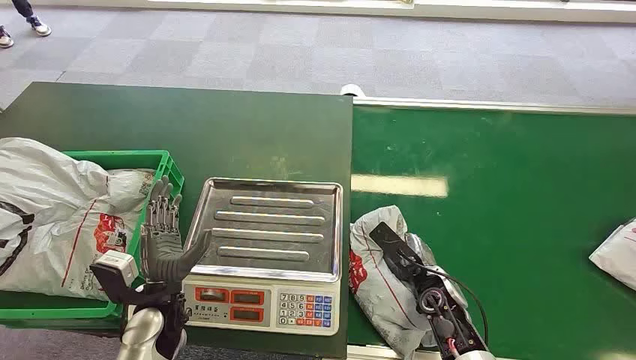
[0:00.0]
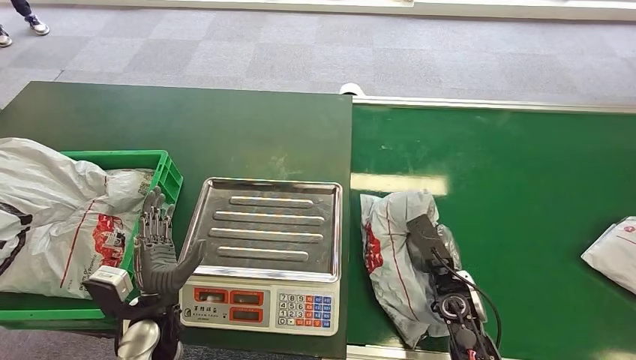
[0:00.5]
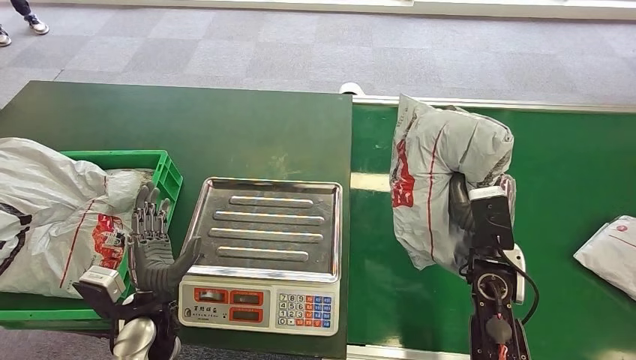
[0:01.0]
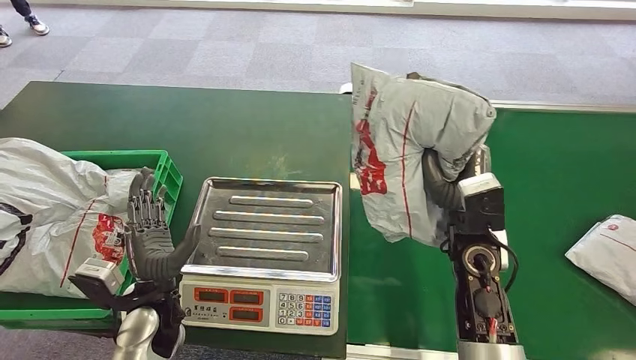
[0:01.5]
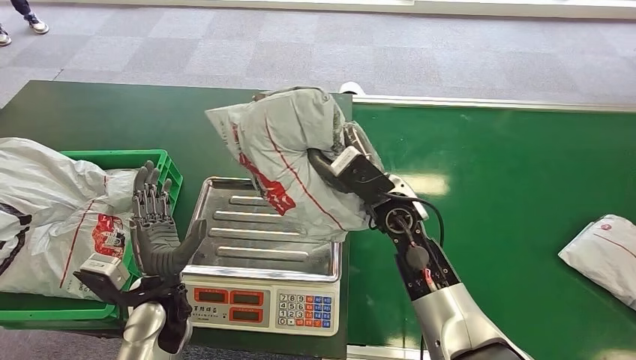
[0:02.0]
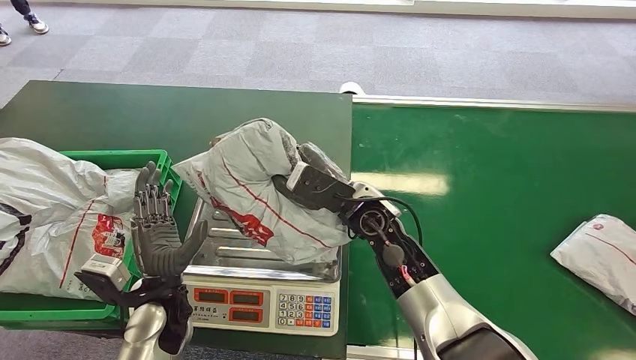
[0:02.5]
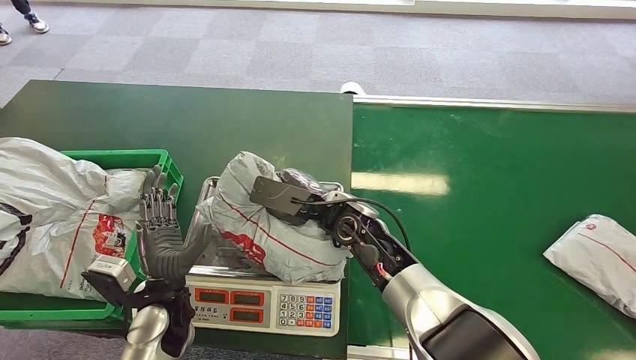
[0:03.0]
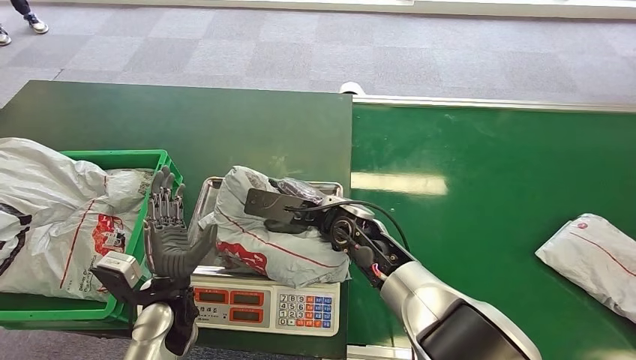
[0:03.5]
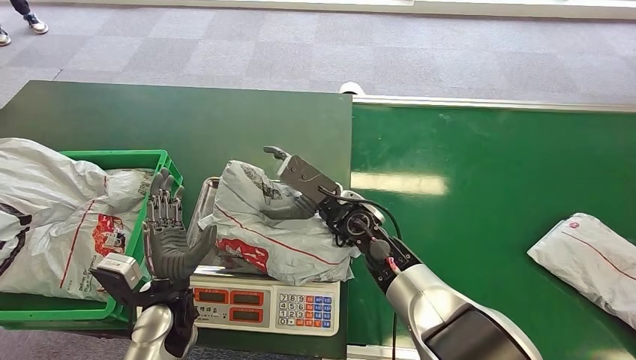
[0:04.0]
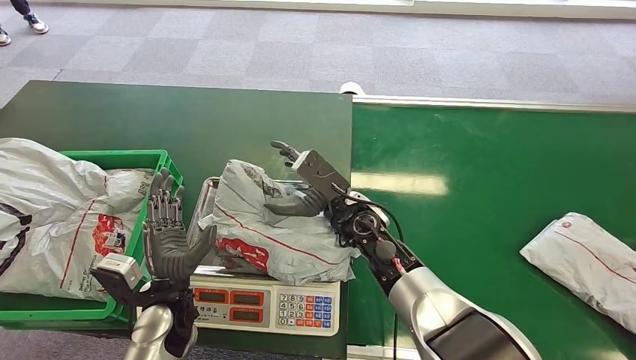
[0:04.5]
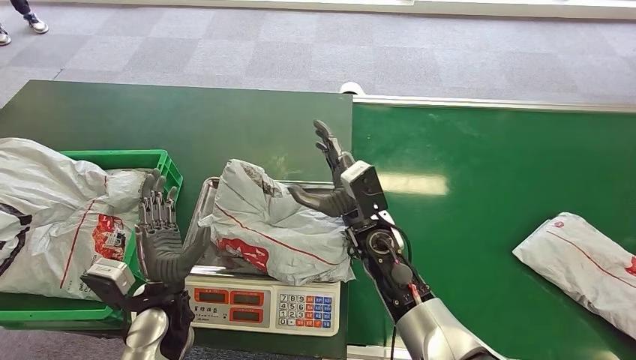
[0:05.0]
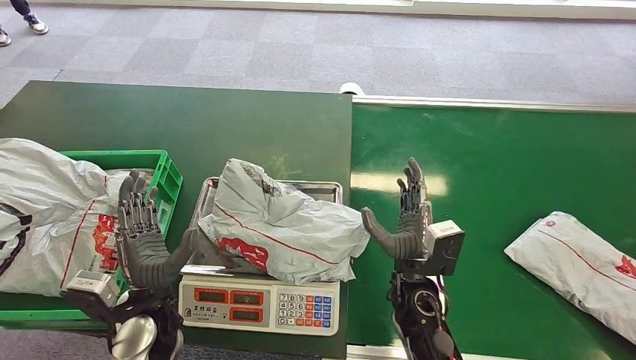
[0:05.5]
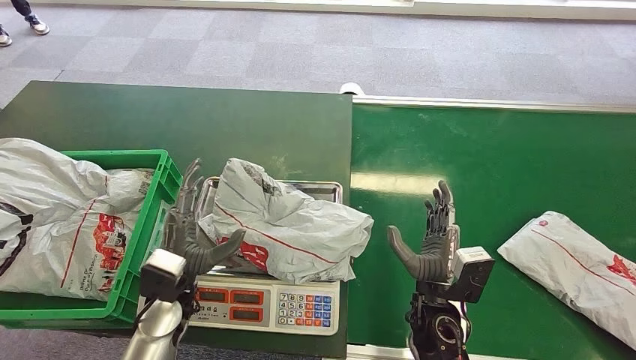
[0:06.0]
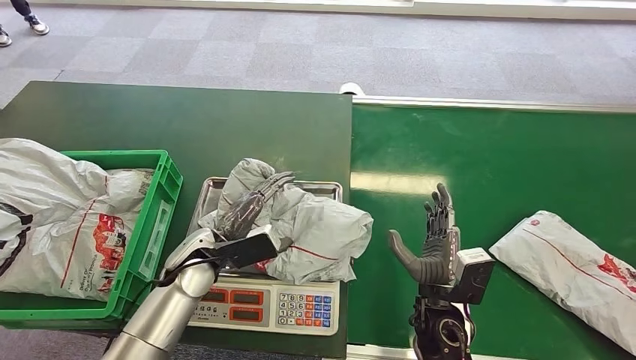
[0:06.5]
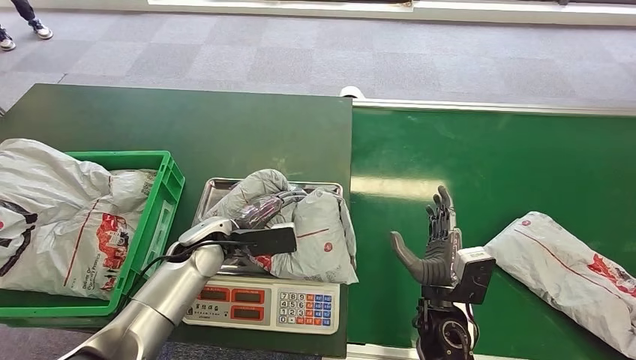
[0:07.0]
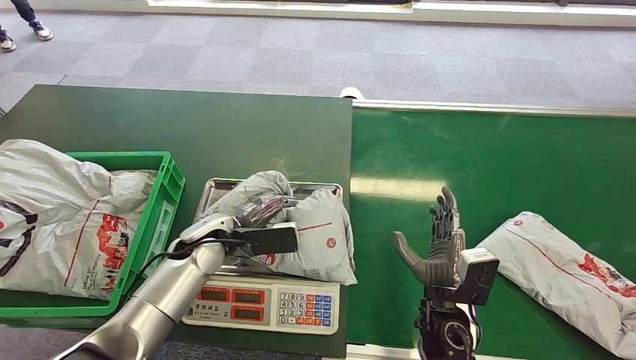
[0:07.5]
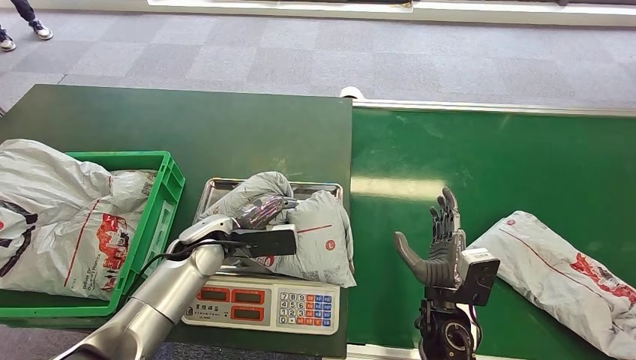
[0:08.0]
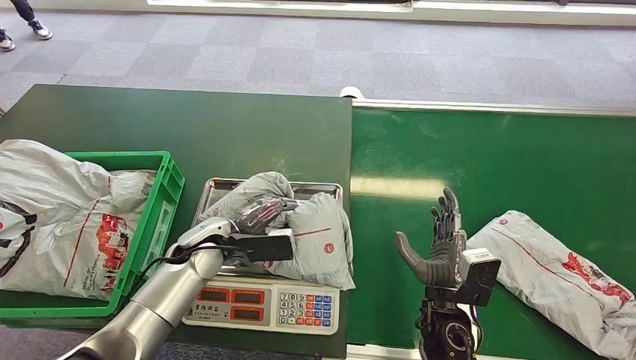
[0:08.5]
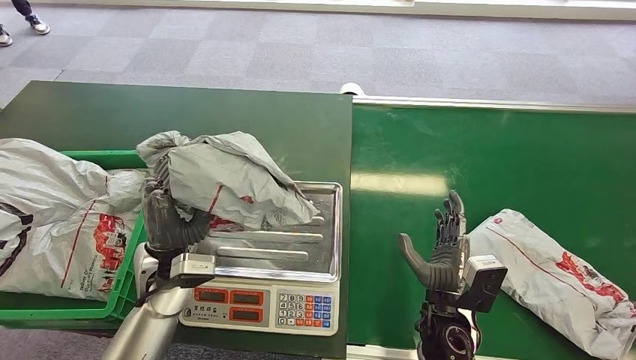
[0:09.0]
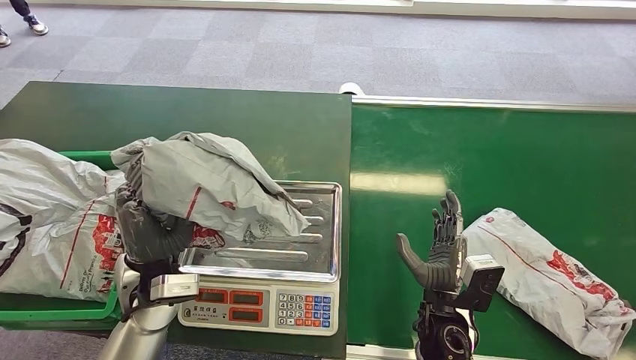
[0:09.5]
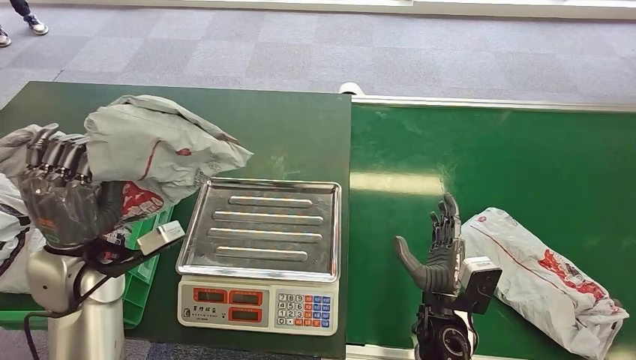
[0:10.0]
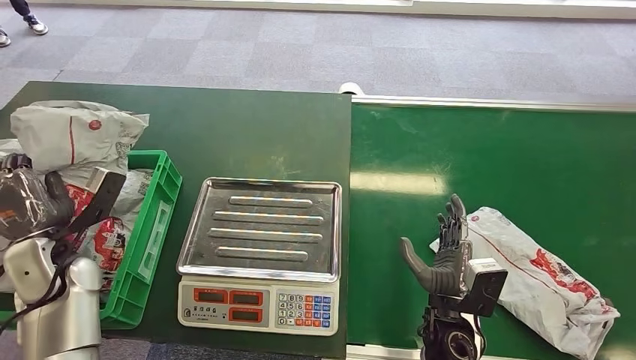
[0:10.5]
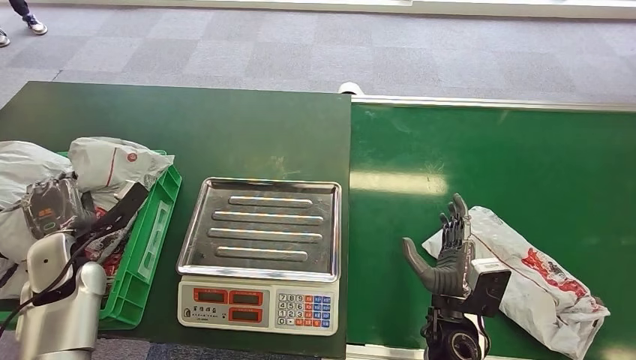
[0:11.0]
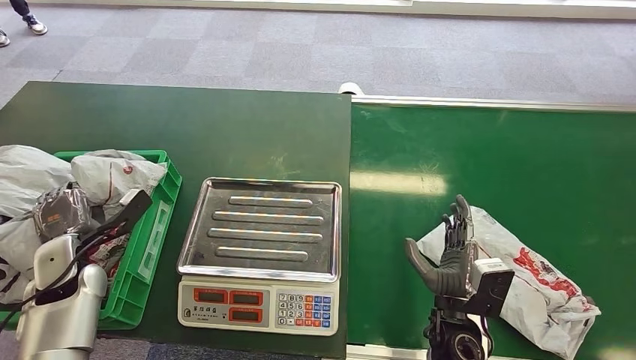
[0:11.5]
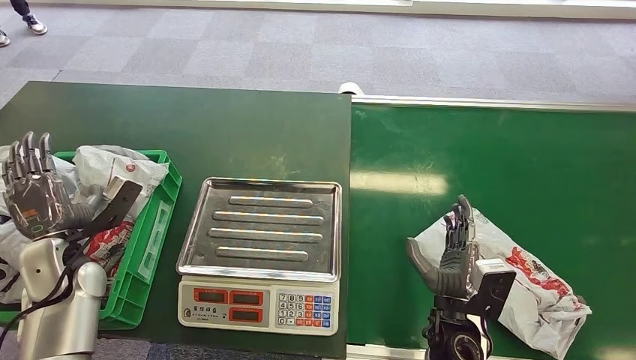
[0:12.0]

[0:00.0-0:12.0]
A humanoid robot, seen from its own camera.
Step, 0:00.0 to 0:01.0: Pick up the package from the conveyor belt.
Step, 0:02.0 to 0:04.0: Place the package onto the inbound machine.
Step, 0:09.0 to 0:09.5: Pick up the package from the inbound machine.
Step, 0:10.0 to 0:12.0: Place the package into the parcel locker.
0:04.0 to 0:06.0: The right hand moves backward, to the right and downward, approximately 20 cm.

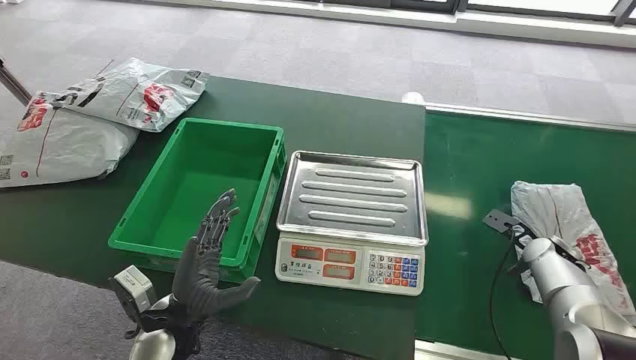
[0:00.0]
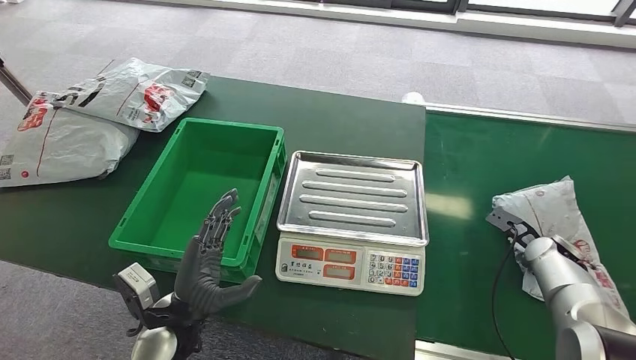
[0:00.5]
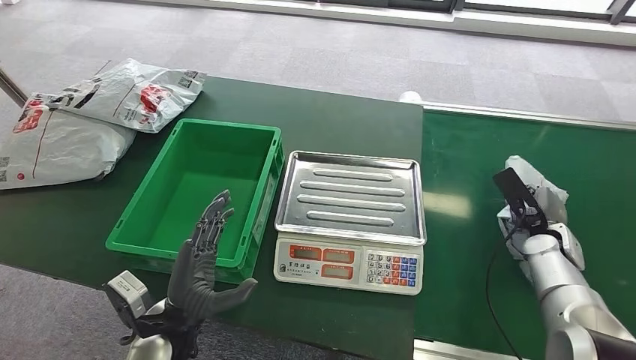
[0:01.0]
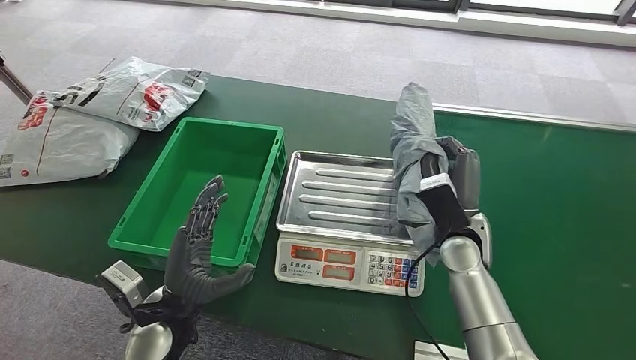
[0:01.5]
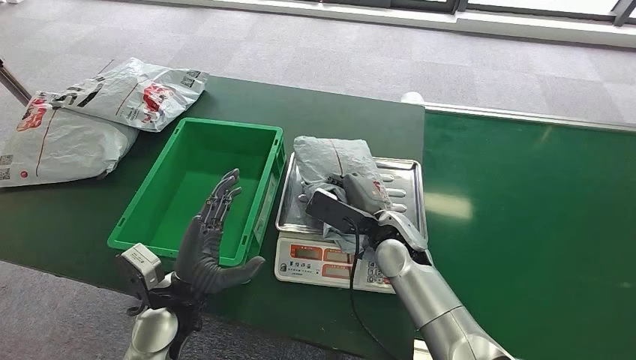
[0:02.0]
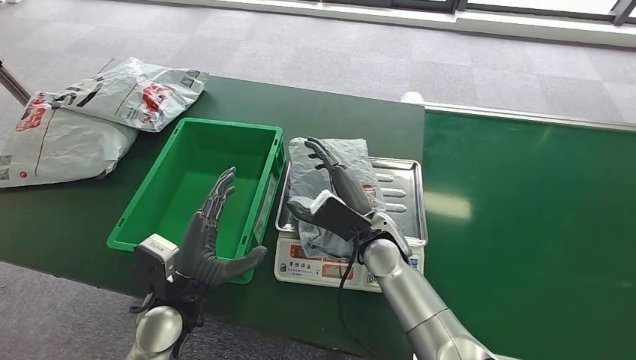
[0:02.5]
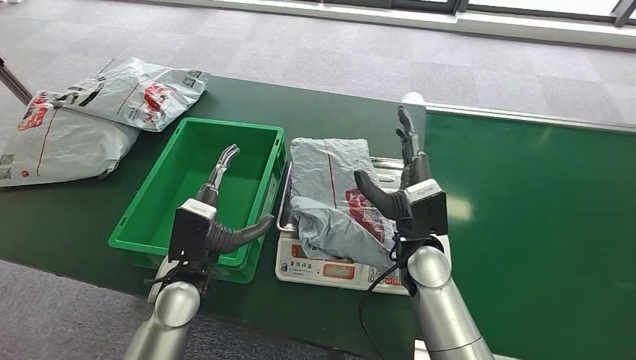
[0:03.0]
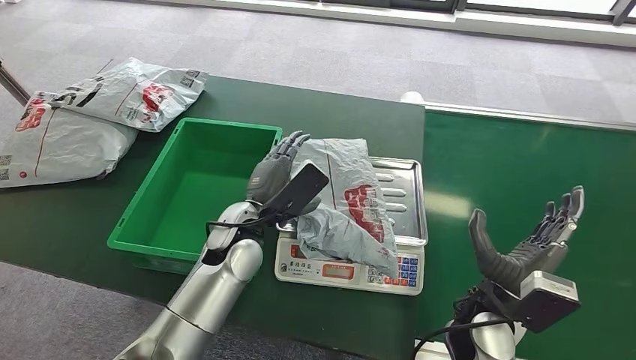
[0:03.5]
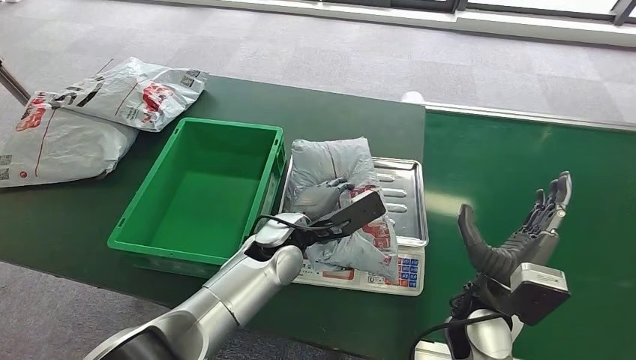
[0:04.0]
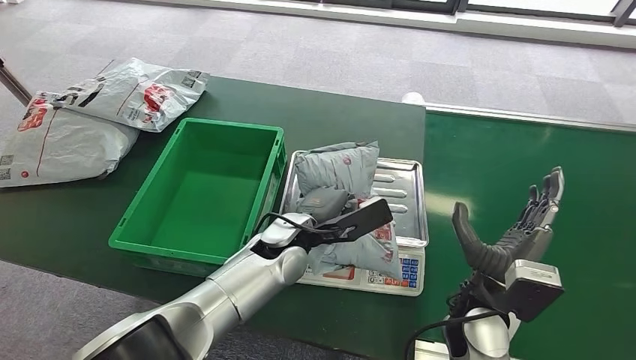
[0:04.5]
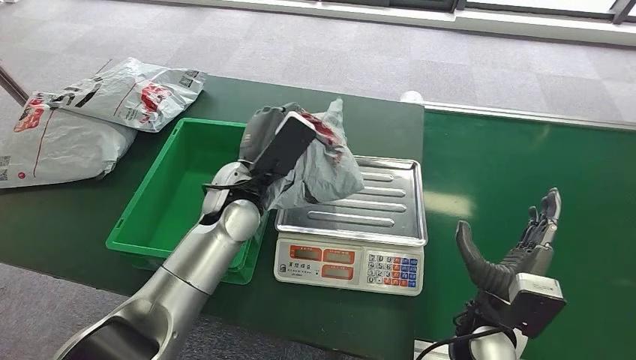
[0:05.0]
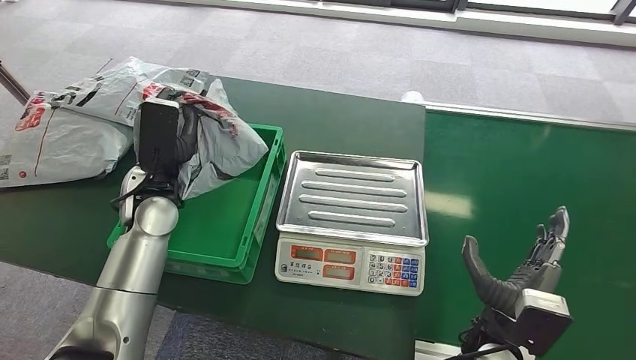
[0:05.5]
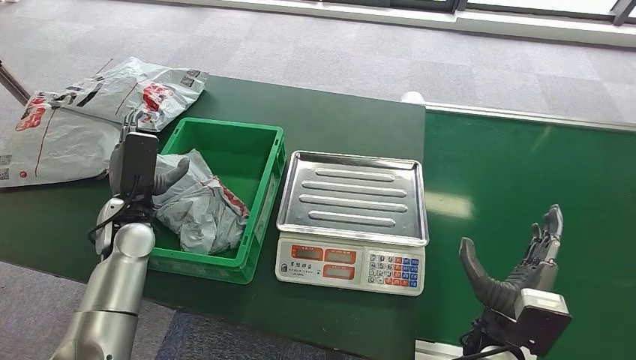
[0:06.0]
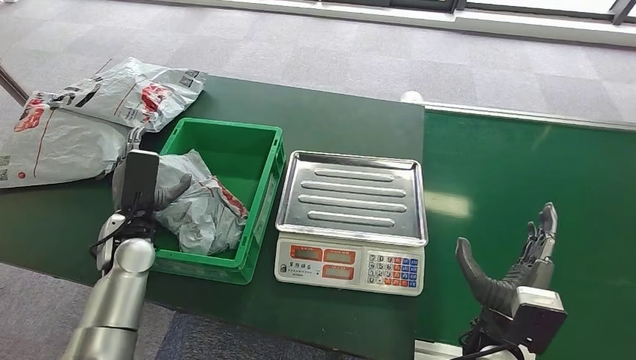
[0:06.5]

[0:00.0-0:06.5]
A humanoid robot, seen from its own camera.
Step, 0:00.0 to 0:01.0: Pick up the package from the conveyor belt.
Step, 0:01.5 to 0:02.5: Place the package onto the inbound machine.
Step, 0:04.0 to 0:05.0: Pick up the package from the inbound machine.
Step, 0:05.5 to 0:06.0: Place the package into the parcel locker.
0:02.0 to 0:04.5: The left hand travels to the right and forward by approximately 20 cm. Meanwhile the right hand moves backward and to the right, roughly 15 cm.
